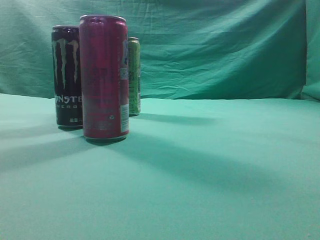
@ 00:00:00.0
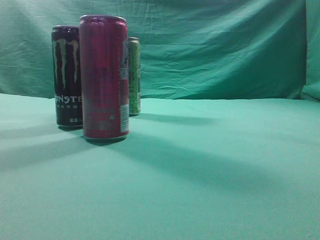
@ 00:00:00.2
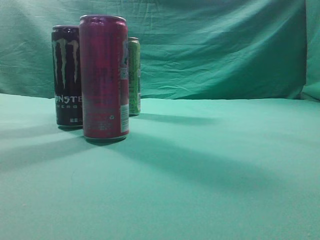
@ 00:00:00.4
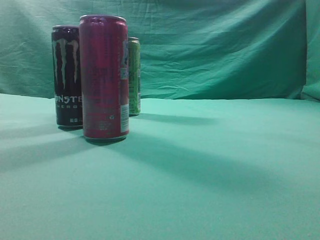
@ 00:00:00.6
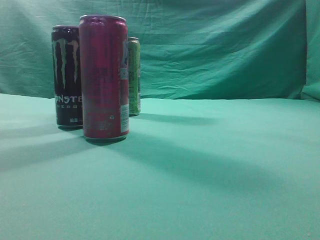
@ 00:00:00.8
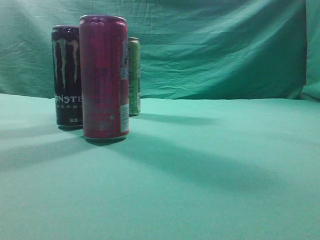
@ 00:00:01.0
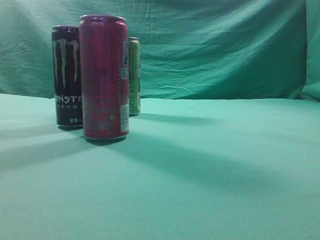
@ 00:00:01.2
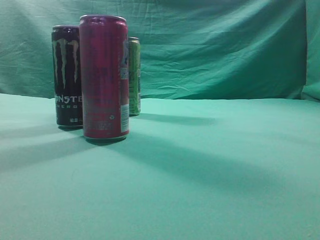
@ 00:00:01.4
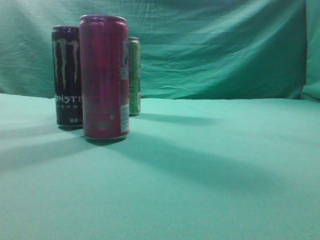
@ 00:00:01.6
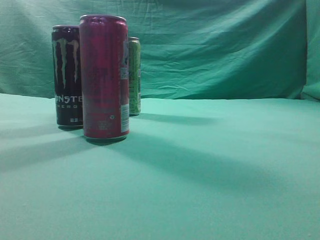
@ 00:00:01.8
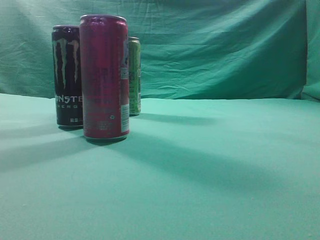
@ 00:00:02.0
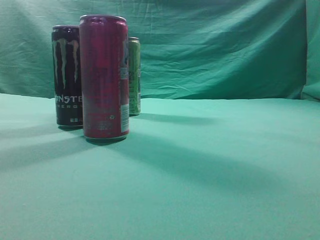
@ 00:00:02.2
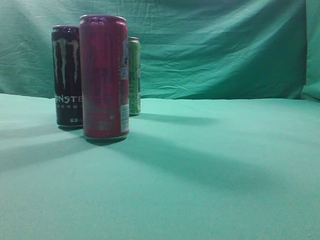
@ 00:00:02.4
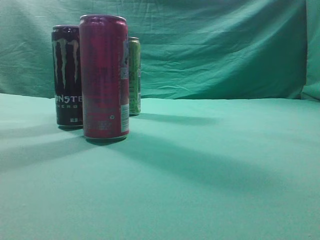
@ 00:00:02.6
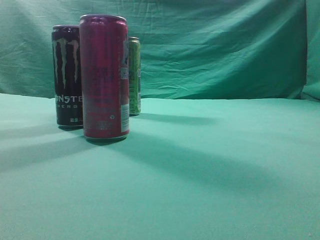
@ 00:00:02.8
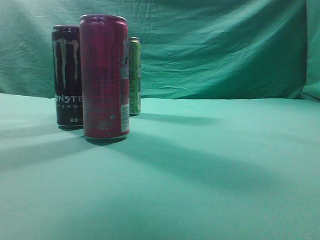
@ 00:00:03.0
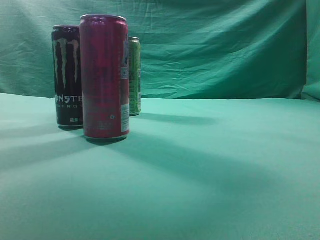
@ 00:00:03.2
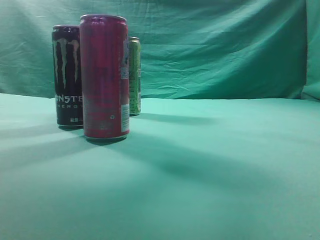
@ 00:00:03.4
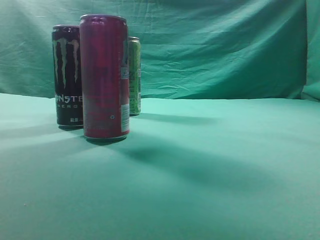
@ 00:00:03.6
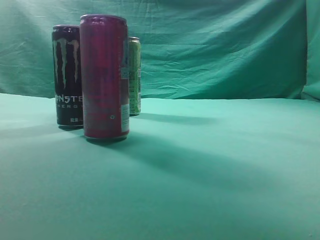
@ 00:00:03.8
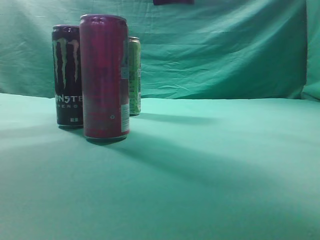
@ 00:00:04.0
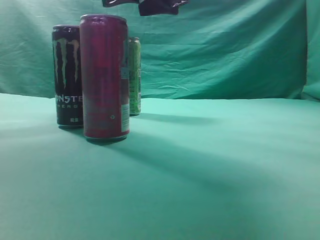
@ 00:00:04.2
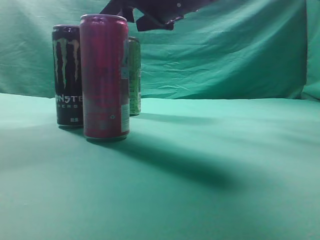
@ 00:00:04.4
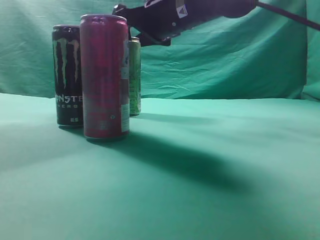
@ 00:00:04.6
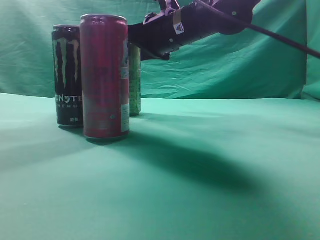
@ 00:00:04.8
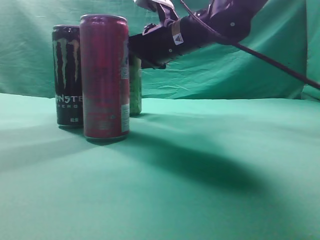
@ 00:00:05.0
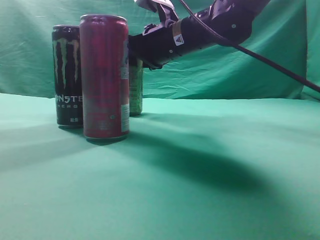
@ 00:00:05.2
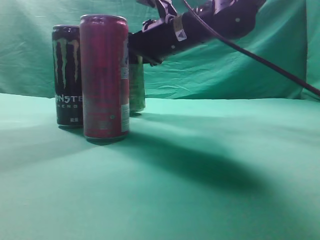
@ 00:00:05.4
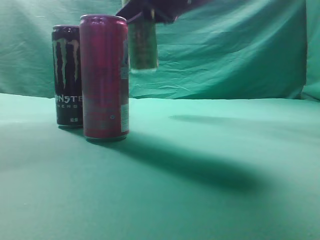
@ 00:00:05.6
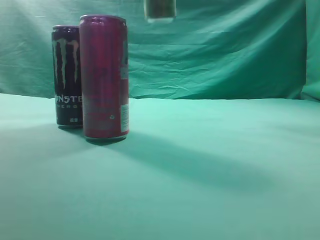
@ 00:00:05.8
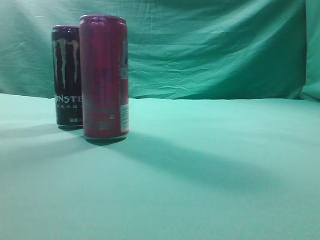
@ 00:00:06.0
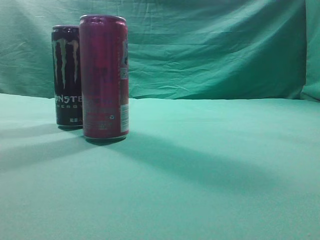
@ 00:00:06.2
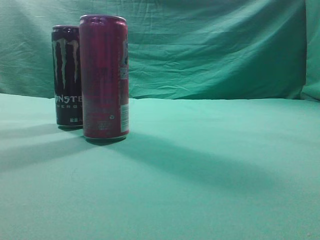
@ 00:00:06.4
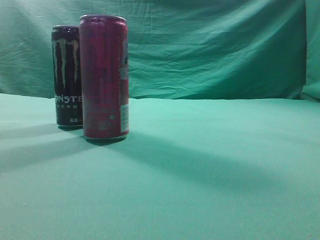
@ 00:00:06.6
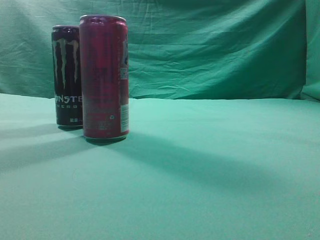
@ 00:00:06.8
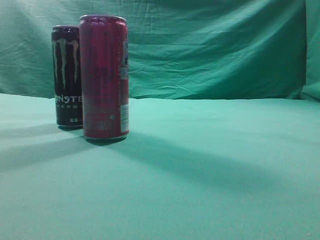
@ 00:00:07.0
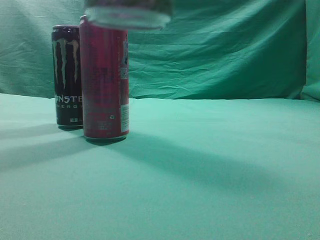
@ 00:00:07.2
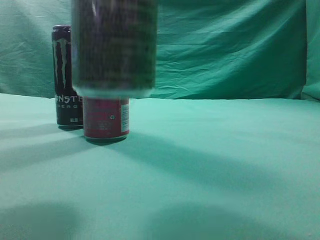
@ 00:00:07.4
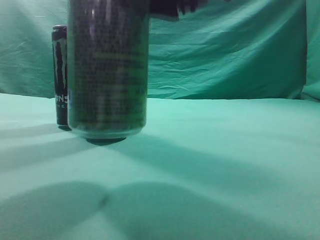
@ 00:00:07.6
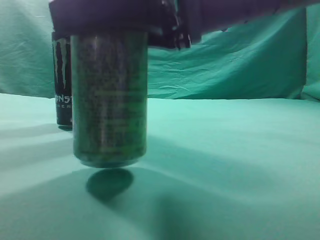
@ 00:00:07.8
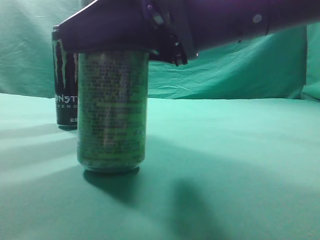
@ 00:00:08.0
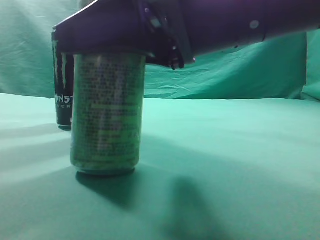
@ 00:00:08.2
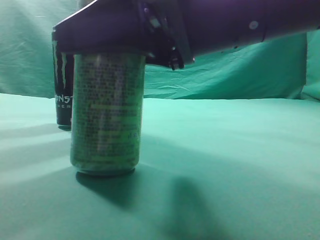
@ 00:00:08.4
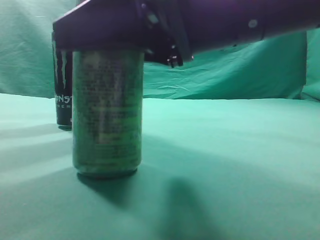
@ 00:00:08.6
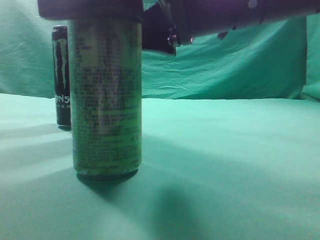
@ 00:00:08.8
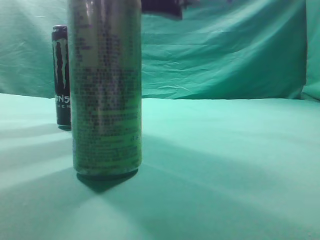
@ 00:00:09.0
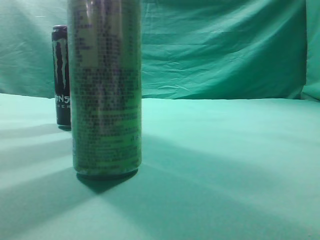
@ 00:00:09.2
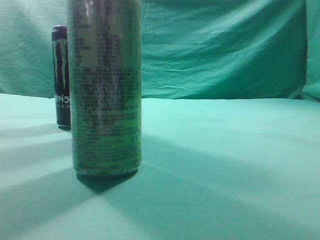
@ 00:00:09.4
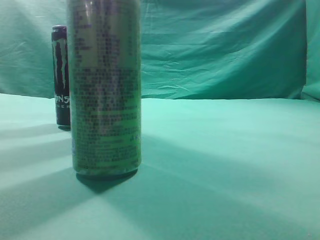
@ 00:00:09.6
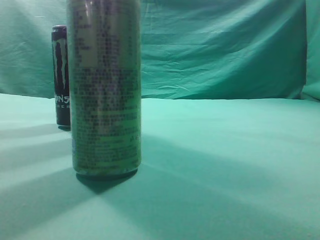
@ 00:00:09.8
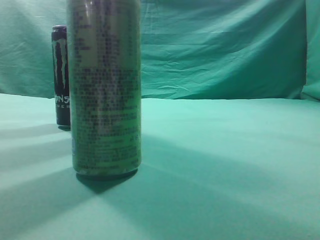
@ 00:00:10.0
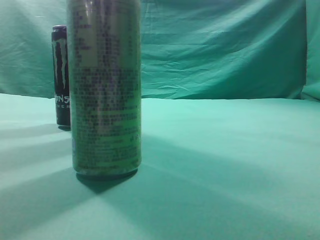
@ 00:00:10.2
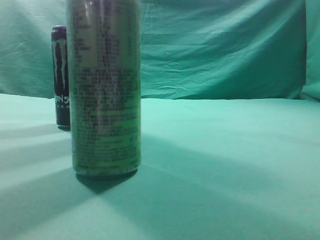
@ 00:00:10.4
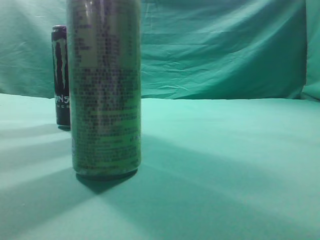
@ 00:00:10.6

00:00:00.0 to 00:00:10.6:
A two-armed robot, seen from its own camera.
Task of the whole recording: move one drink among three beverages.
Step, 00:00:00.0 to 00:00:05.6: Grasp the beverage bottle placed at the back of the desk.
Step, 00:00:05.8 to 00:00:09.2: Place the beverage bottle to the front of the table.
00:00:01.6 to 00:00:03.0: The right gripper goes roughly 20 cm forward and to the left.
00:00:03.0 to 00:00:04.6: The right gripper moves forward and to the left, about 25 cm, and opens its fingers.
00:00:04.6 to 00:00:06.0: The right gripper heads upward and to the right, covering about 20 cm, and closes.
00:00:06.0 to 00:00:07.6: The right gripper is displaced downward and backward by approximately 25 cm.
00:00:07.6 to 00:00:09.0: The grippers move only a little.
00:00:09.0 to 00:00:10.6: The right gripper moves to the right, upward and backward, roughly 25 cm, and closes.

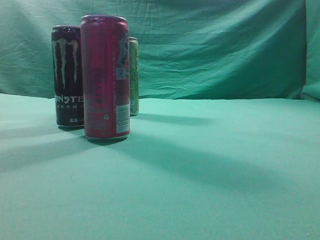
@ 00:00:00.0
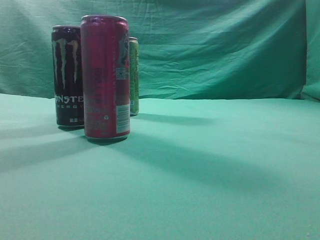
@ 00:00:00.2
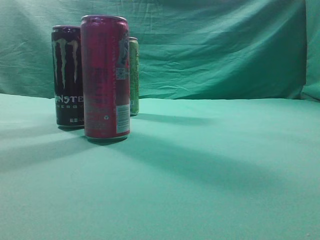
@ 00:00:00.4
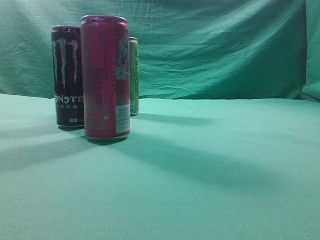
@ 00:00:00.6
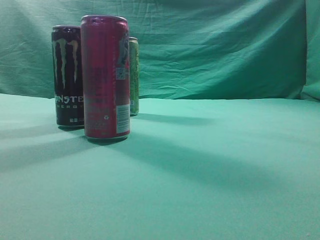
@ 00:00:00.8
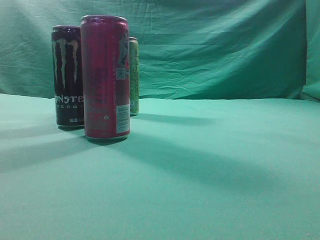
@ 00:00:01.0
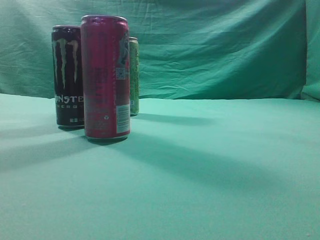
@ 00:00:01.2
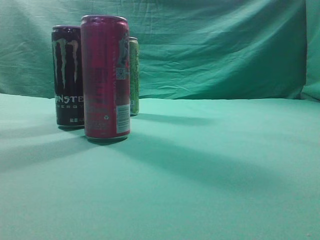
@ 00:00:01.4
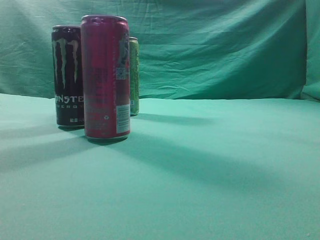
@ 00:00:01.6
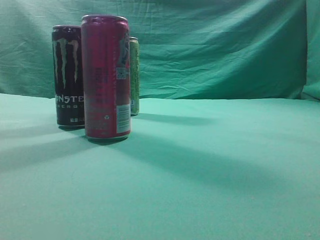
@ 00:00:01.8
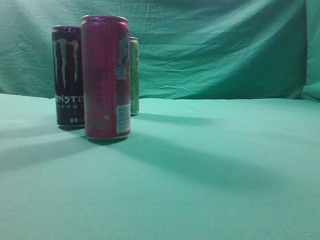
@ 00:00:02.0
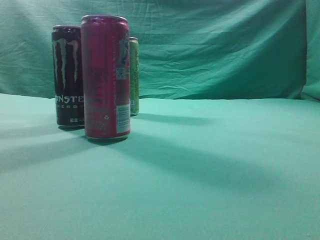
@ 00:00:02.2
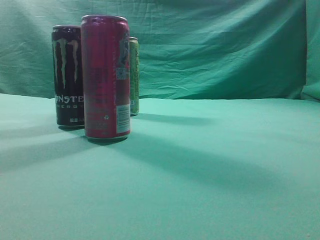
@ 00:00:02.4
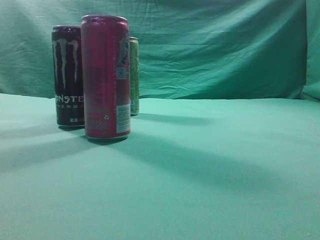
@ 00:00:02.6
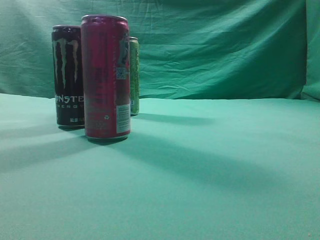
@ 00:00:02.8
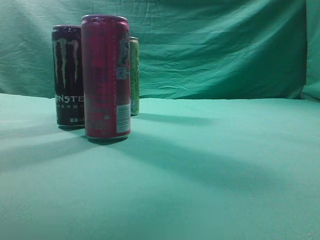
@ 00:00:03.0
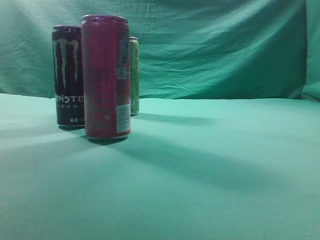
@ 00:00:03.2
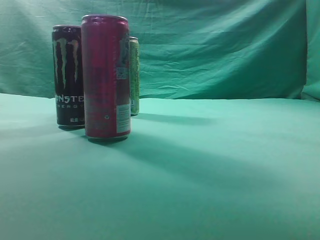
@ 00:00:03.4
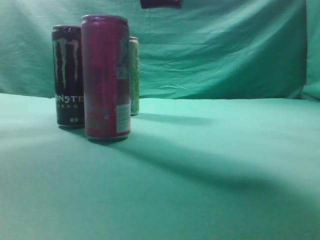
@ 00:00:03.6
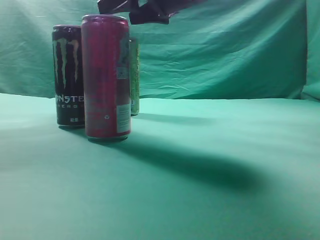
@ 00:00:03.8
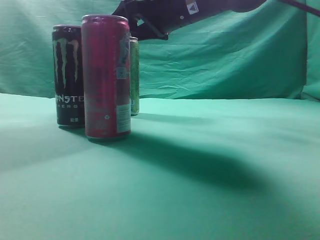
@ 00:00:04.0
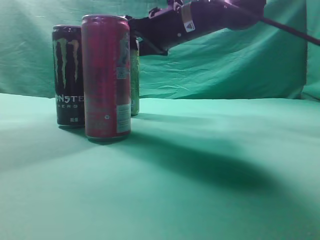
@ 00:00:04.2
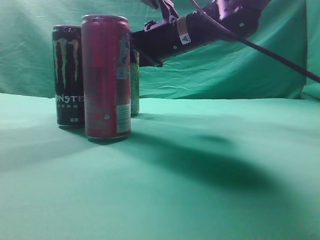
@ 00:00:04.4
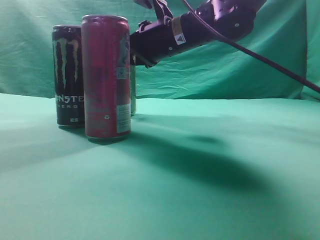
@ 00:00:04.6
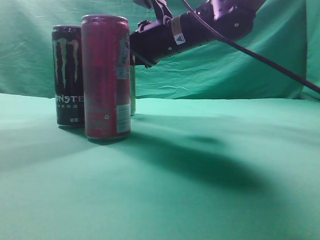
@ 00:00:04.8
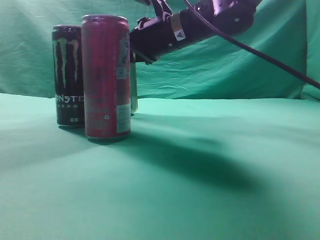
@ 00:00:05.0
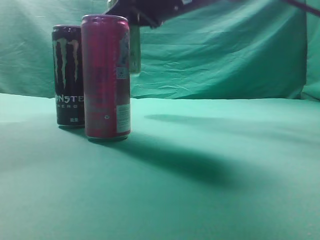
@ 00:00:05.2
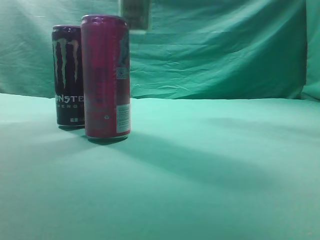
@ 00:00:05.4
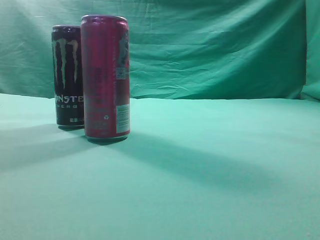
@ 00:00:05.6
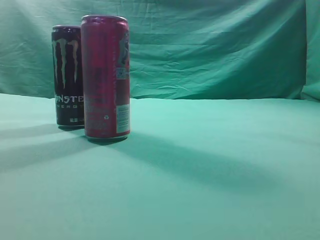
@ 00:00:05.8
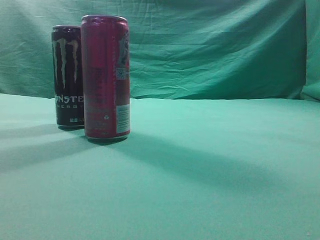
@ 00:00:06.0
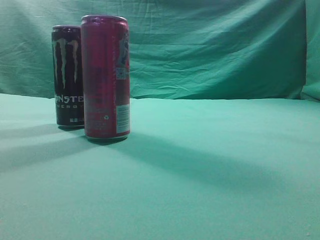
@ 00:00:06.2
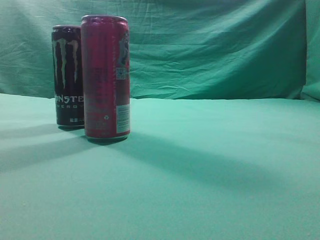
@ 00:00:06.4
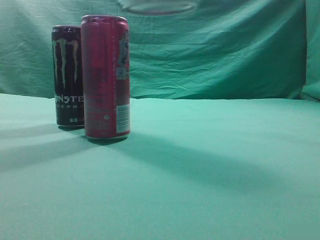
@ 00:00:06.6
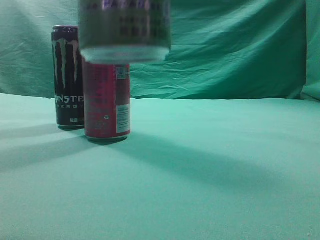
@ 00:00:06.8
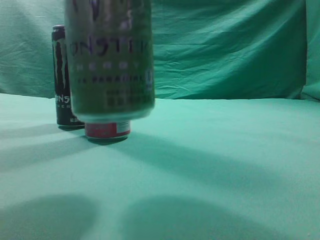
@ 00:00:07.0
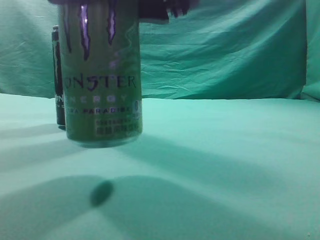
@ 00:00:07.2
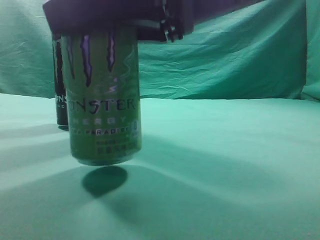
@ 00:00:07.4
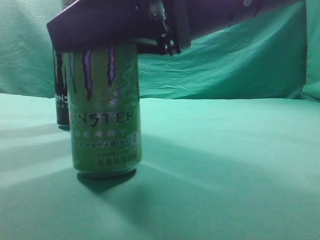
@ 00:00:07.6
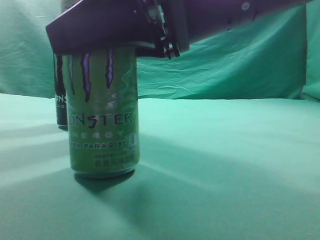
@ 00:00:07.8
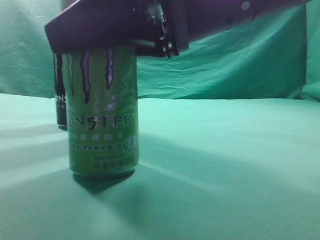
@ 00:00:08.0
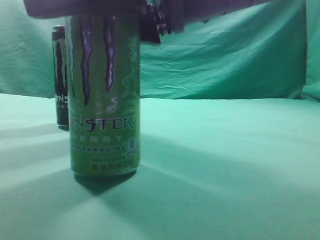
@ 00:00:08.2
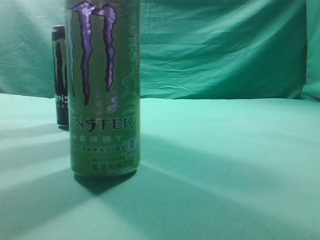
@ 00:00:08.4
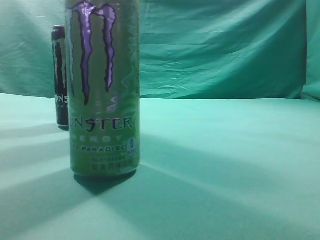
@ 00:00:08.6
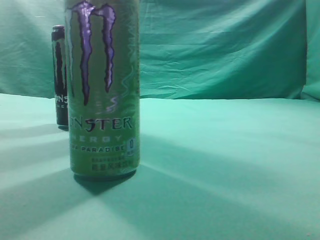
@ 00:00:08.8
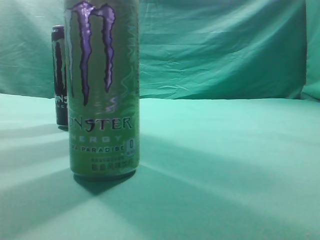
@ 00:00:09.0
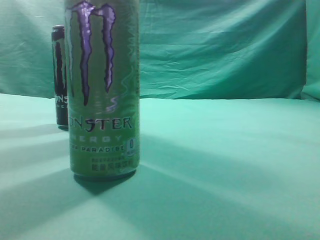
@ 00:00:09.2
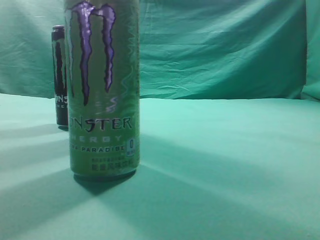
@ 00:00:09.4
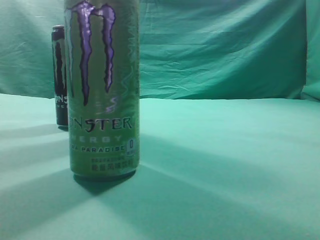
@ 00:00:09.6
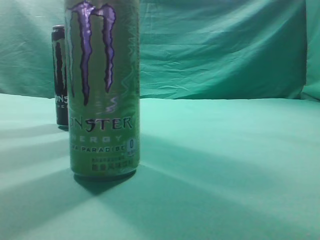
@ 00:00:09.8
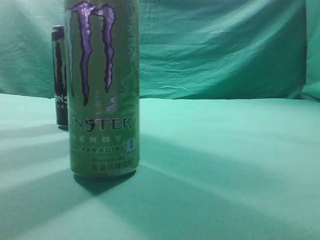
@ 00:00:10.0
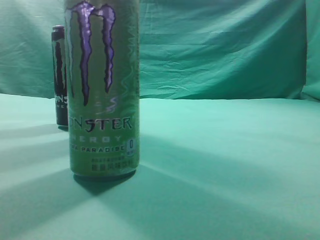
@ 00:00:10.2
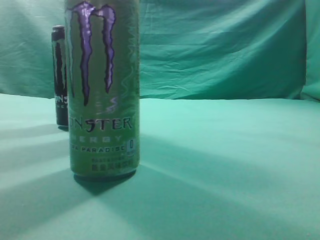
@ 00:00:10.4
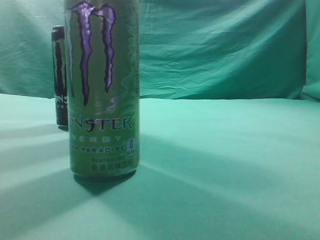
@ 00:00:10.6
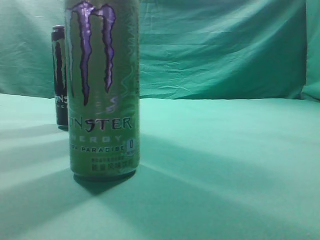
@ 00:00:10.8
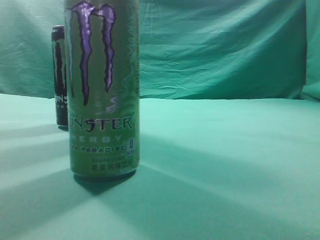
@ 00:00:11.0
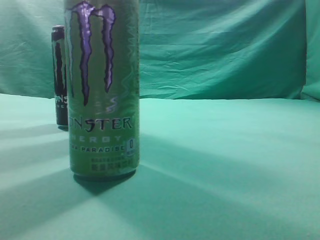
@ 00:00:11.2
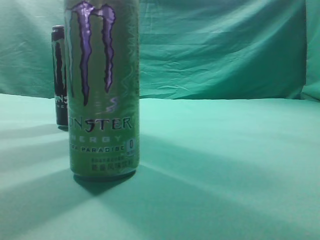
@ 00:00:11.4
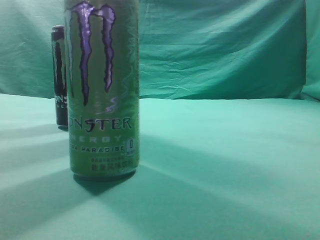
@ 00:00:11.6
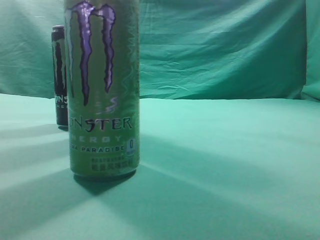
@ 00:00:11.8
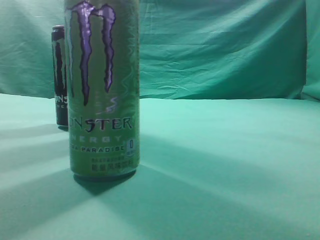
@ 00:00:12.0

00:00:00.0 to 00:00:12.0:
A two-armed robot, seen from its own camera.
Task of the whole recording: move one drink among three beverages.
Step, 00:00:00.0 to 00:00:05.0: Grasp the beverage bottle placed at the back of the desk.
Step, 00:00:05.2 to 00:00:08.4: Place the beverage bottle to the front of the table.
00:00:01.6 to 00:00:03.0: The right gripper travels forward and to the left by approximately 25 cm.
00:00:03.0 to 00:00:04.4: The right gripper is displaced forward, downward and to the left by about 25 cm, and opens up.
00:00:04.4 to 00:00:06.0: The right gripper travels upward and backward by about 30 cm.
00:00:06.0 to 00:00:07.6: The right gripper heads downward, covering approximately 25 cm.
00:00:07.6 to 00:00:09.0: The right gripper goes roughly 25 cm upward, to the right and backward, and closes its fingers.
